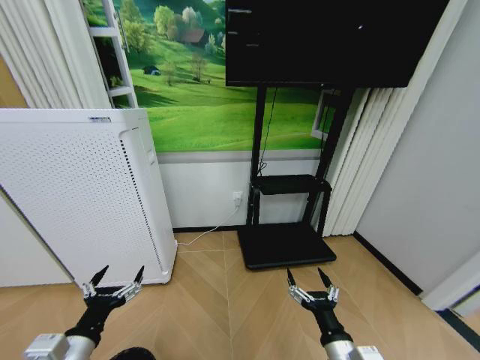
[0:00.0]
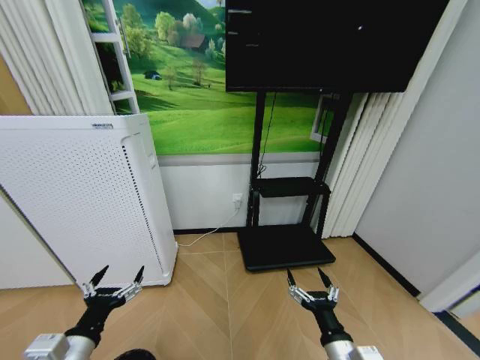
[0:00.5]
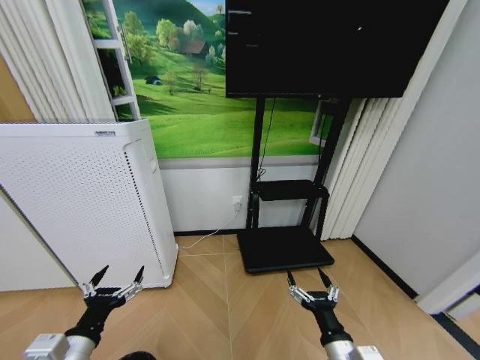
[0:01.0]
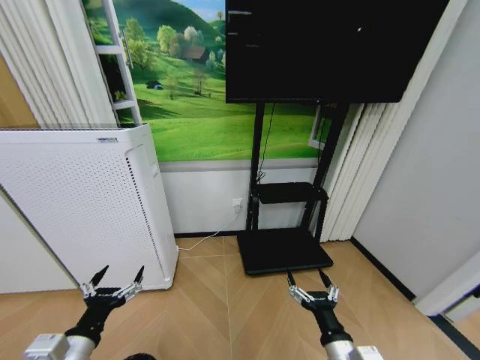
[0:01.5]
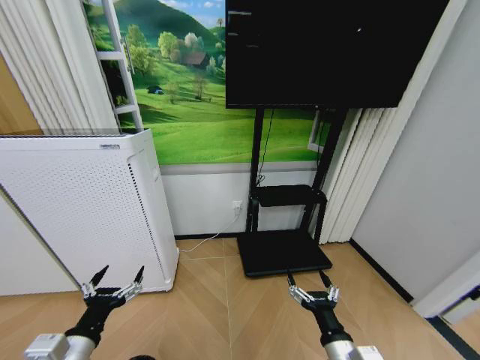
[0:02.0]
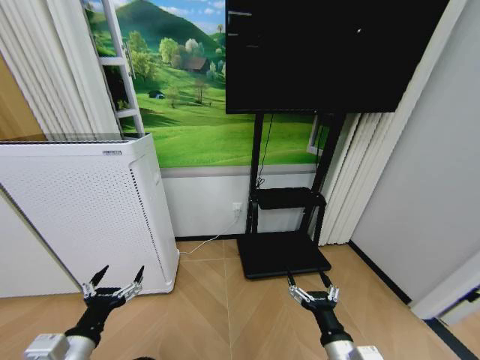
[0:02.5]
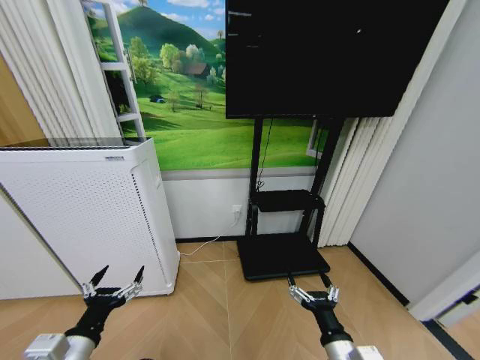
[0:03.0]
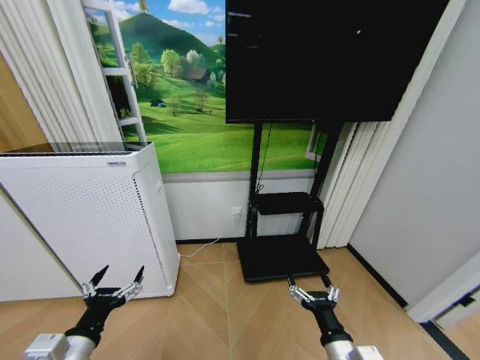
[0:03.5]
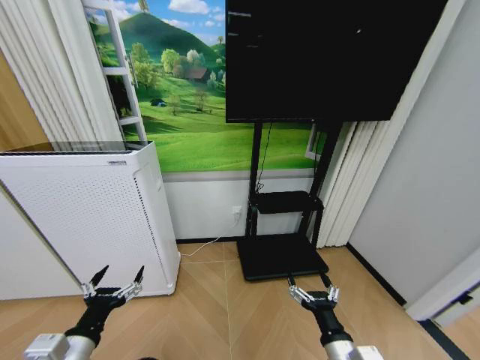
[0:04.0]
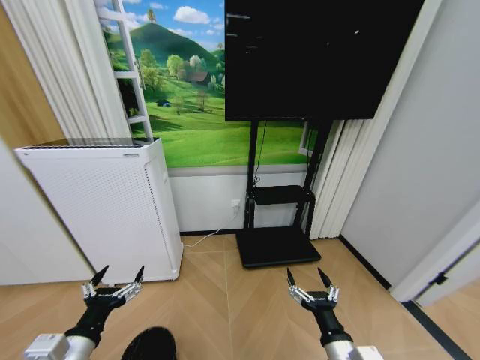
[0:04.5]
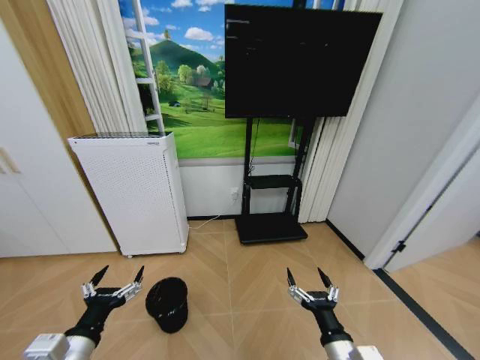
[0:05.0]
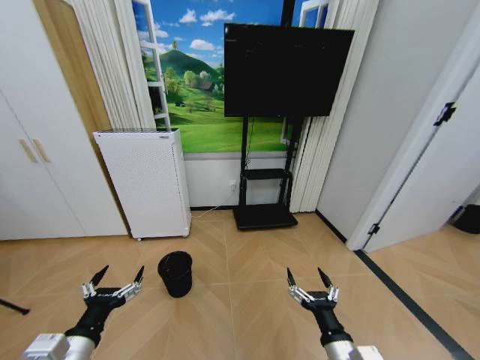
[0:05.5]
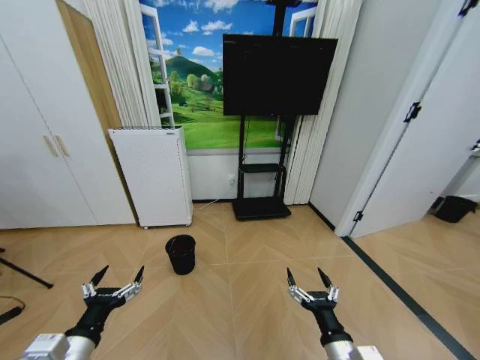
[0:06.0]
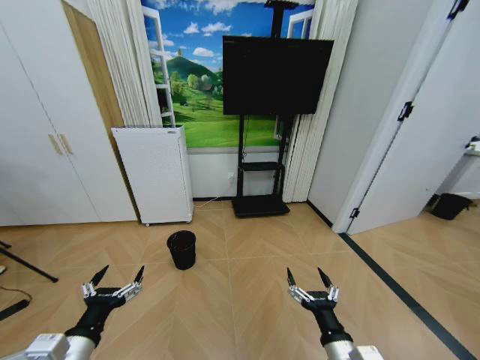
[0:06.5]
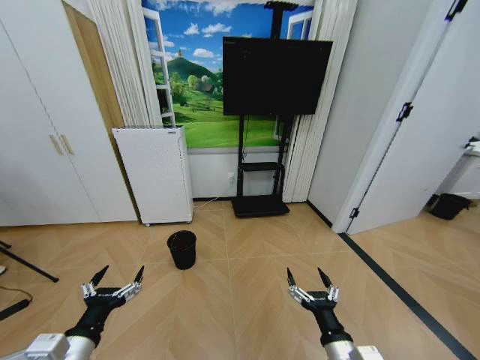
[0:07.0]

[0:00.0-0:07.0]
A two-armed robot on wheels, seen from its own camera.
Task of the whole recording: Pick up the trash bin and place the garbage on the floor into it.
0:00.0 to 0:03.5: Neither gripper changes place.
